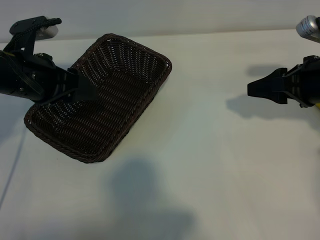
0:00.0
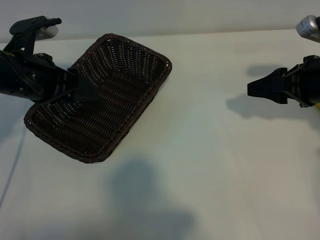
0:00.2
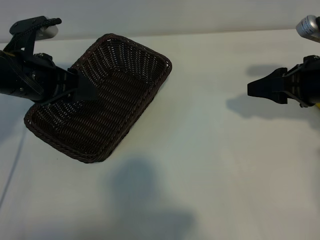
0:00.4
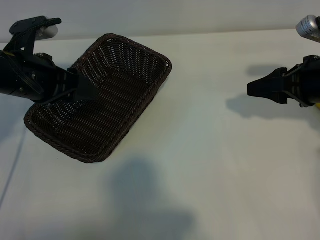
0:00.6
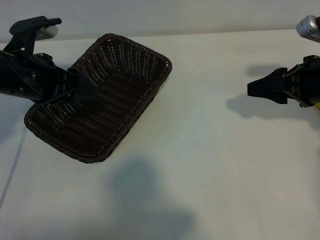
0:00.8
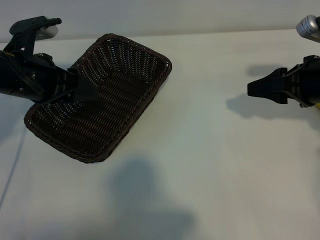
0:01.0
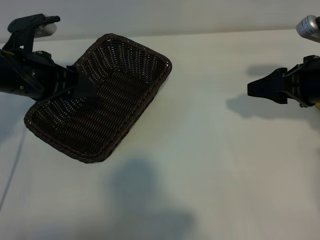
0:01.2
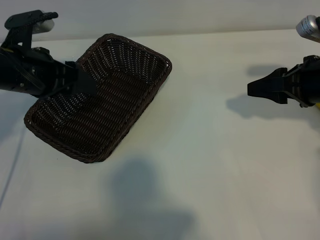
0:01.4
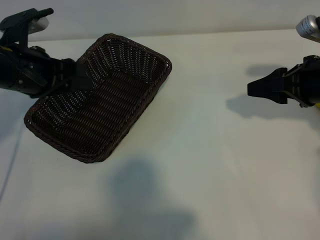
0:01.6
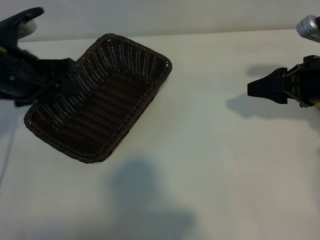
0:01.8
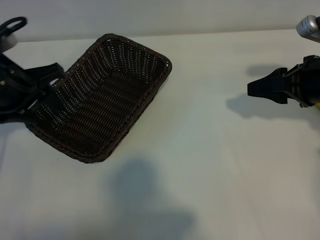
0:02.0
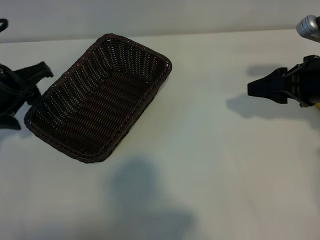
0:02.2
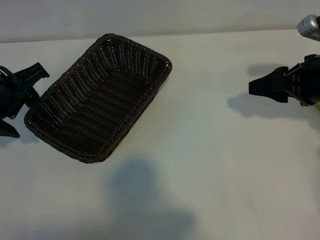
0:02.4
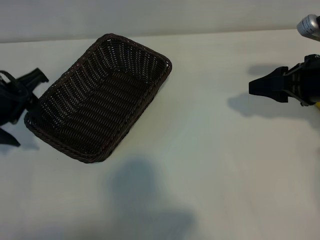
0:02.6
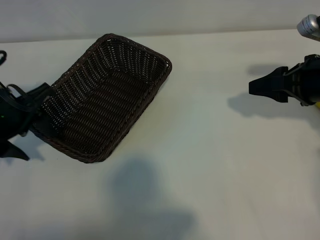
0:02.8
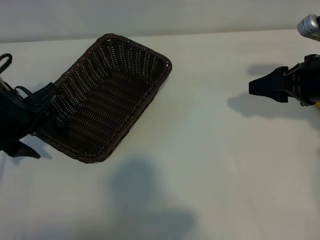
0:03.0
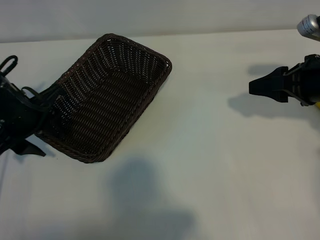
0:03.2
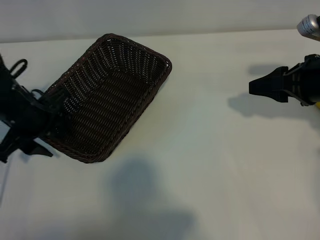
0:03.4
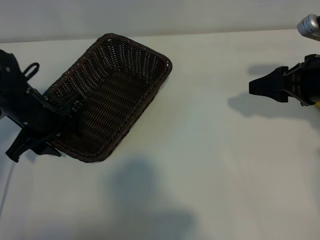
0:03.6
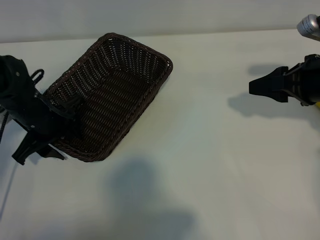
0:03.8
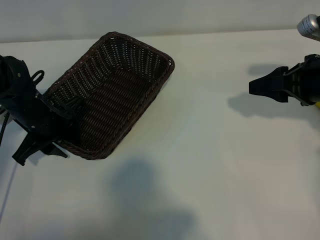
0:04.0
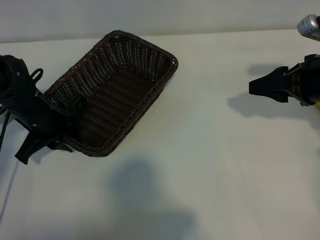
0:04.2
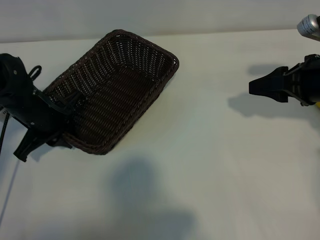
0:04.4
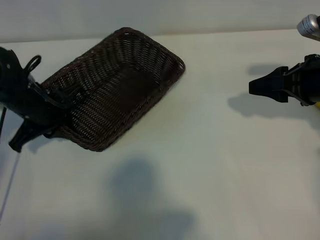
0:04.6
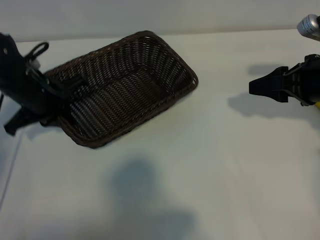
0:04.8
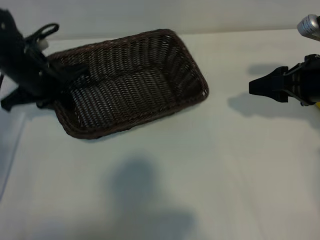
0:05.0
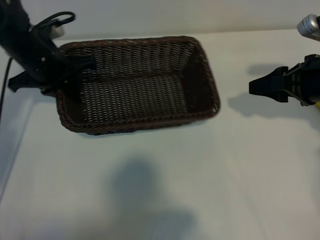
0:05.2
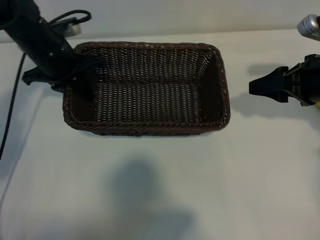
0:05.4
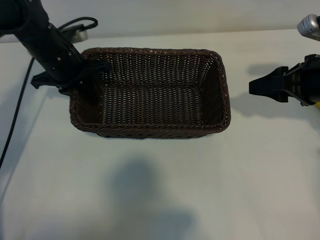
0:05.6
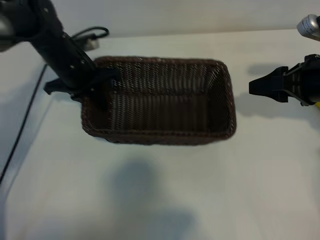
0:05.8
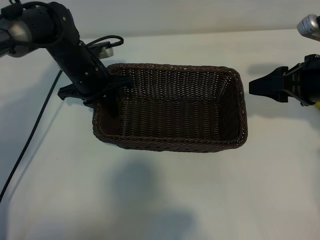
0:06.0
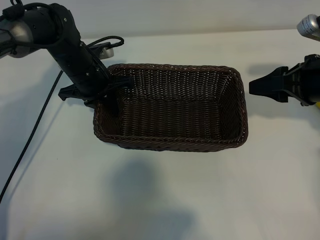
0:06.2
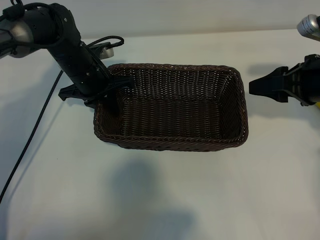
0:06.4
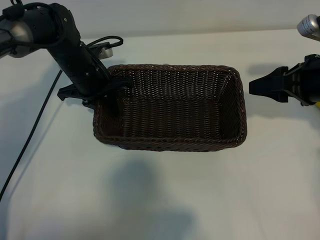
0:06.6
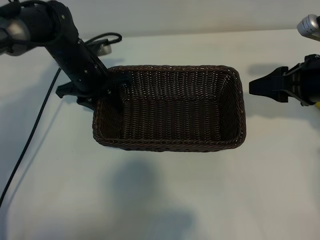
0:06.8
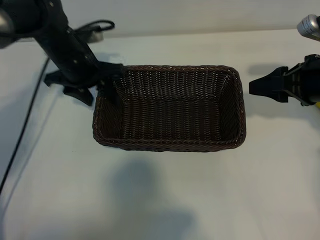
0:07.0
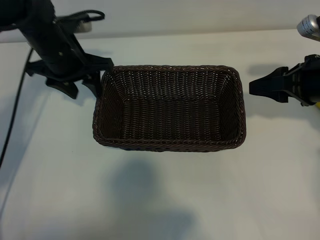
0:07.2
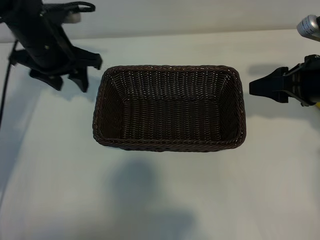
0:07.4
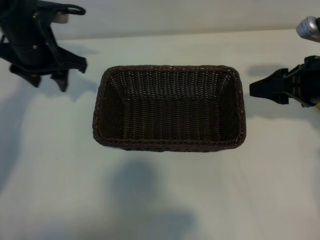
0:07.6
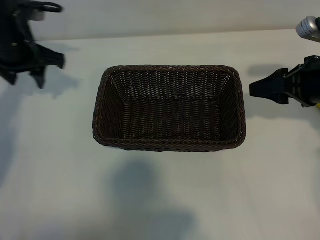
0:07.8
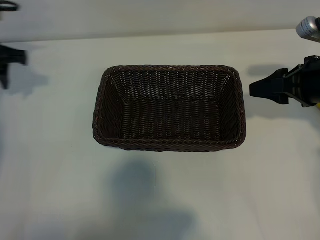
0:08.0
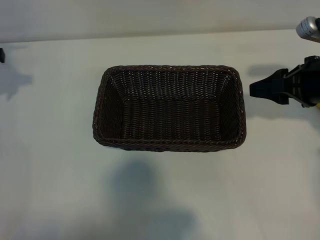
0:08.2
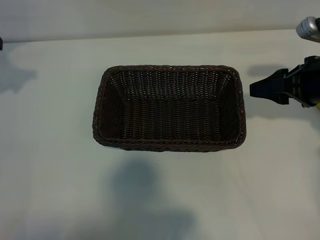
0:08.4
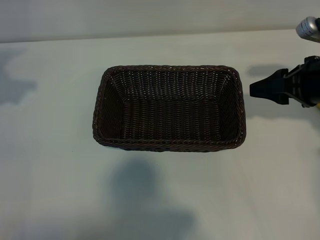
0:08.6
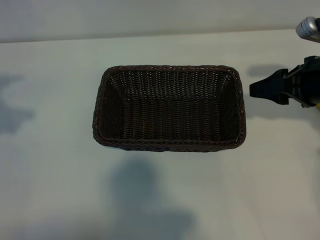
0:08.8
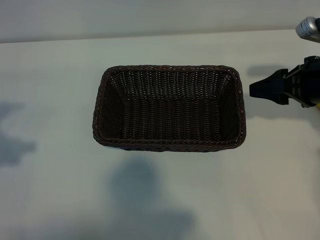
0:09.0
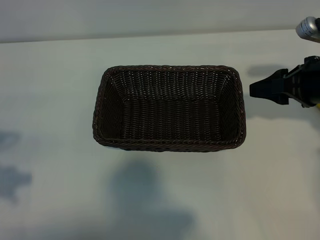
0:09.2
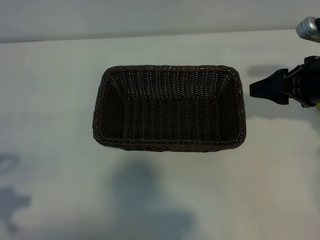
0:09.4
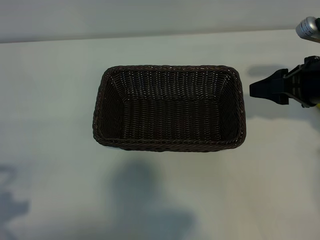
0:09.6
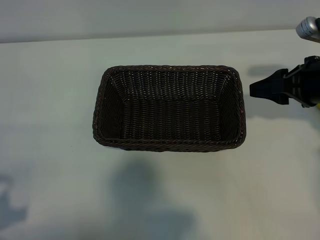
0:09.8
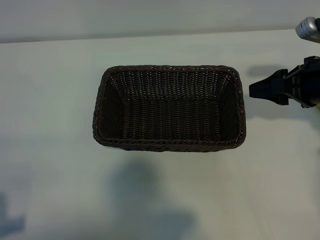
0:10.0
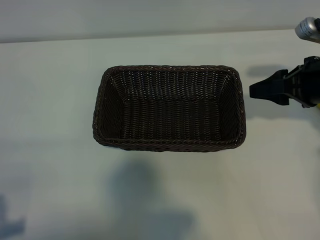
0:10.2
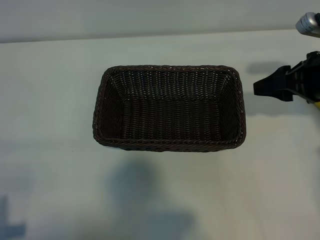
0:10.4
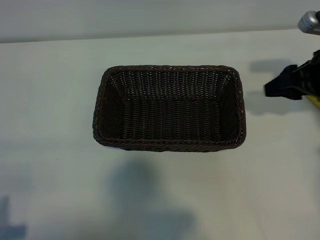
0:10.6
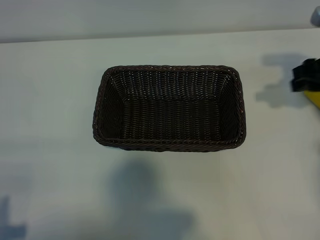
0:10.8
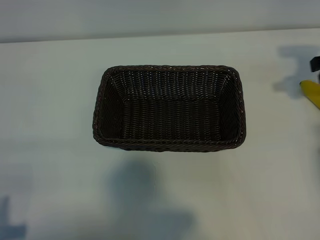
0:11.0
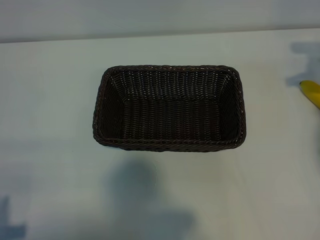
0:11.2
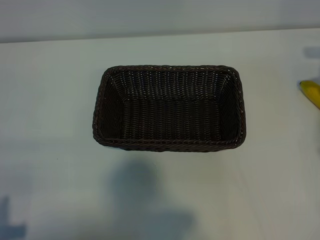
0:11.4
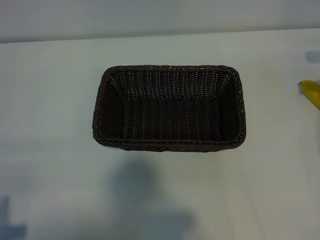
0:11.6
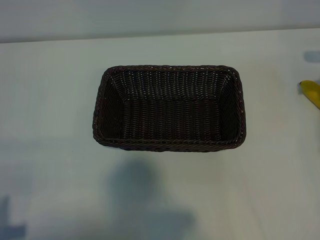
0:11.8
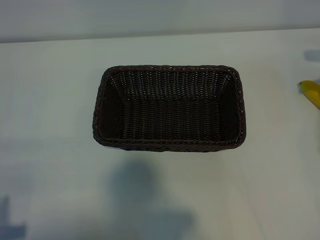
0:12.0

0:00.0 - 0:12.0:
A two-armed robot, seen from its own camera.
Task of the whole recording: pick up the banana and put it into the basket.
Step, 0:01.2 - 0:04.4: Grasp the basket with the left gripper.
Step, 0:04.6 - 0:07.2: Place the basket in the center of the table with the left gripper.

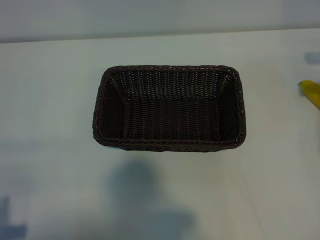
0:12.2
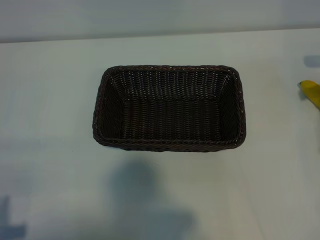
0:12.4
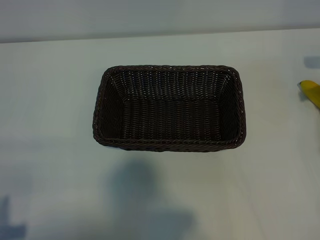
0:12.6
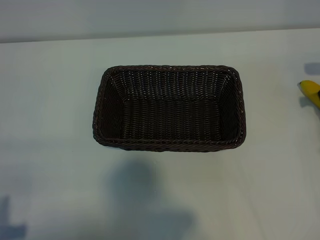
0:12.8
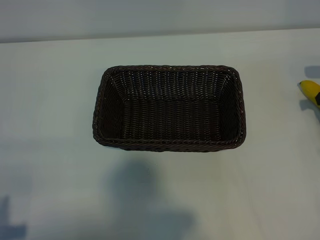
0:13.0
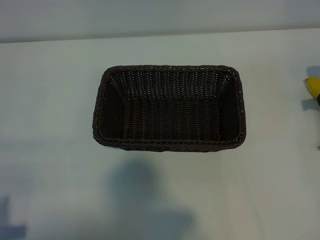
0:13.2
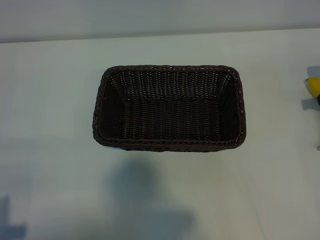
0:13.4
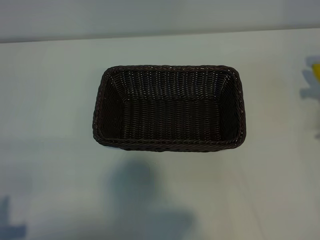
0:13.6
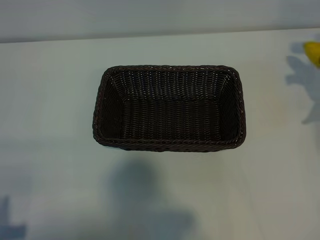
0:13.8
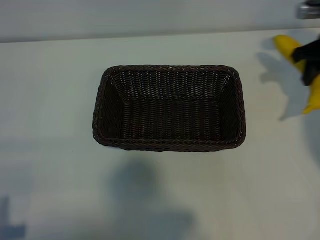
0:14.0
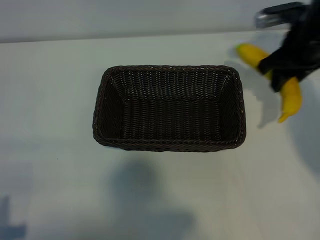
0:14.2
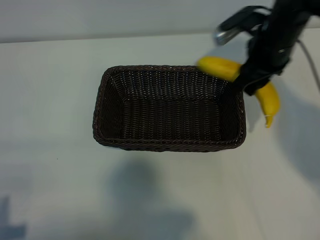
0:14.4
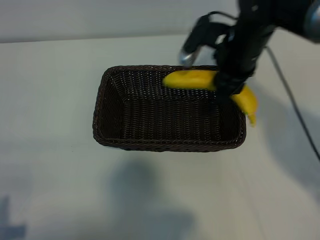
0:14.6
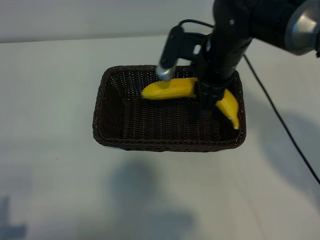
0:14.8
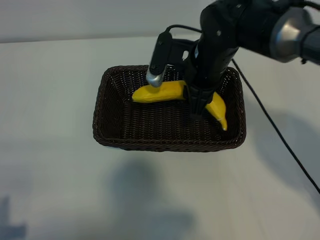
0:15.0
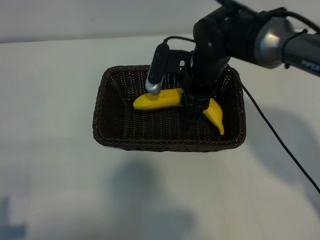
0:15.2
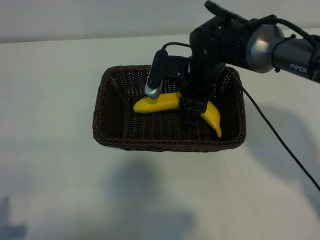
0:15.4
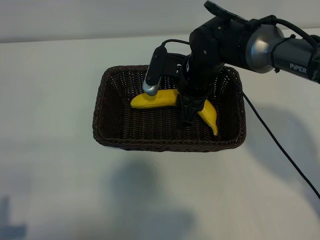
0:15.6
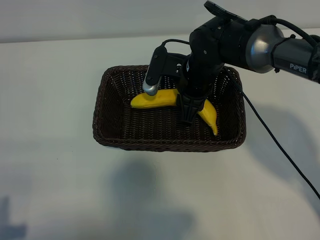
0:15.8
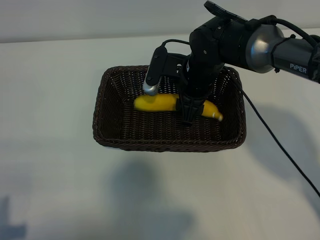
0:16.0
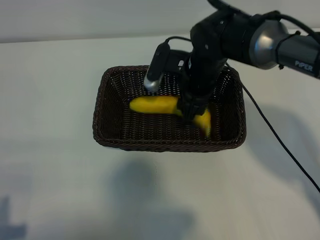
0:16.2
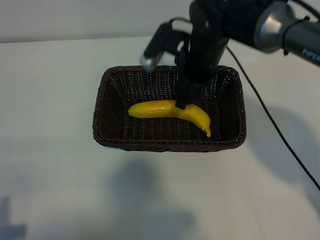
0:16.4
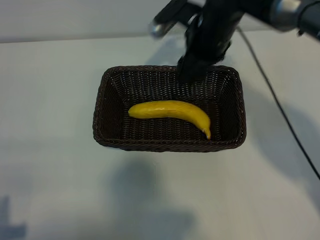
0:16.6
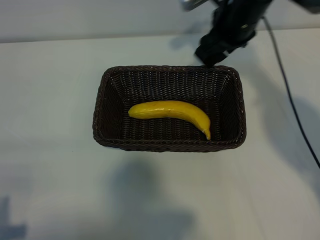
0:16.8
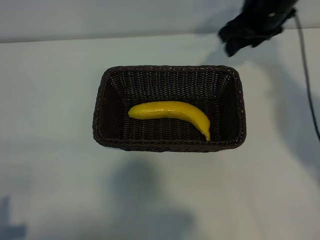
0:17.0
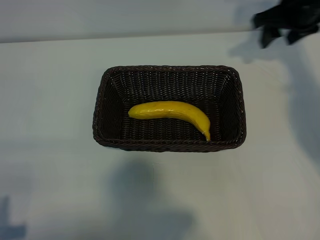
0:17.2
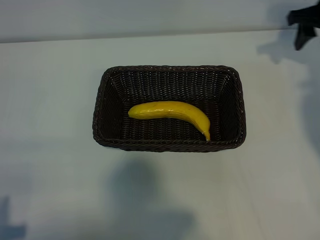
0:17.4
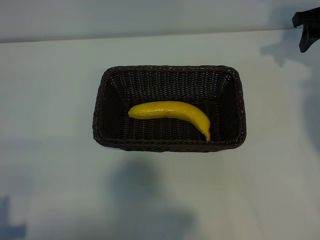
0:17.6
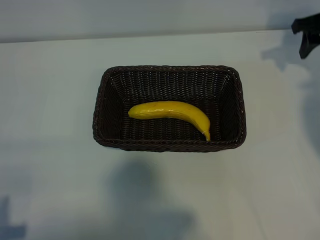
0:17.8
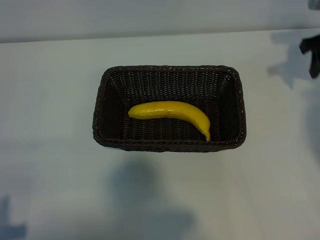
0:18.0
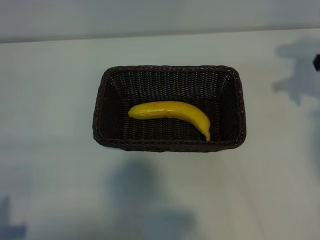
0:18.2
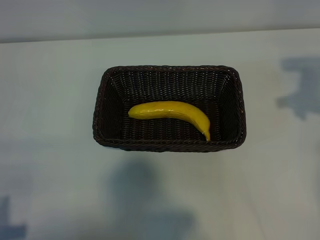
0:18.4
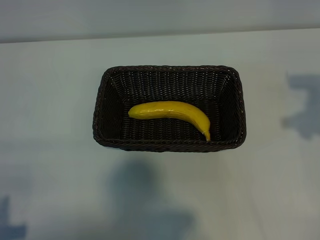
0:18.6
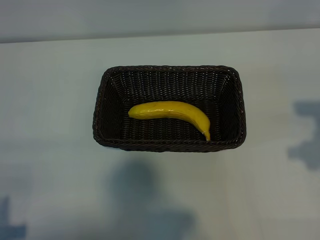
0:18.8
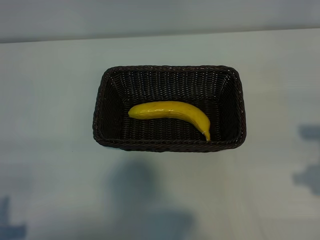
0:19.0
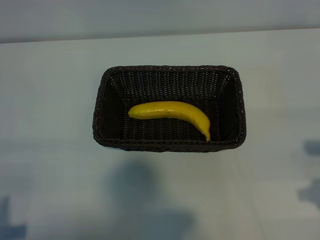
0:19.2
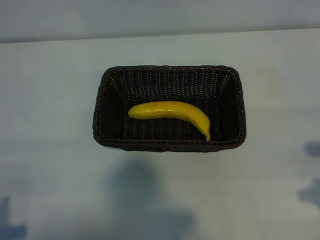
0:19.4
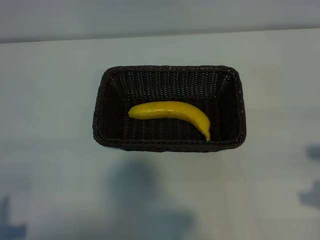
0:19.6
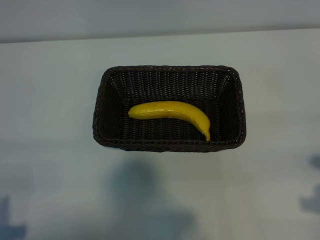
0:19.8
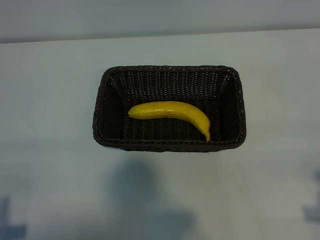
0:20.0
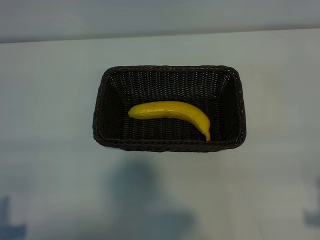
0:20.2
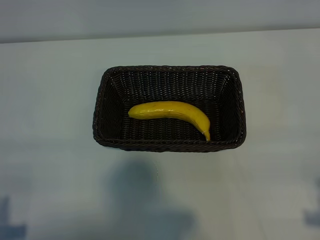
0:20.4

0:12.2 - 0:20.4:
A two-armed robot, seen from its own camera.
Task of the whole recording: pick up the banana and put it into the basket.
Step, 0:13.4 - 0:16.4: Place the banana in the basket with right gripper.

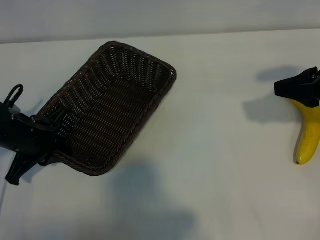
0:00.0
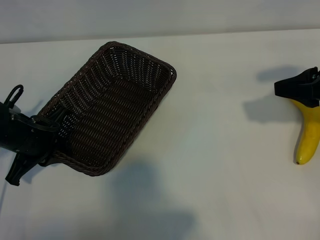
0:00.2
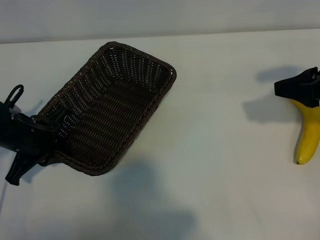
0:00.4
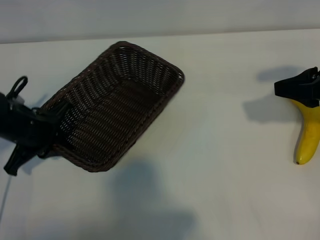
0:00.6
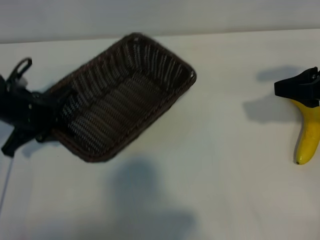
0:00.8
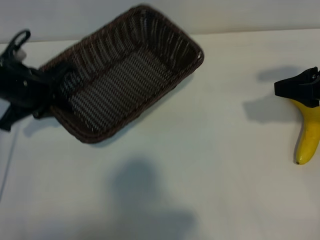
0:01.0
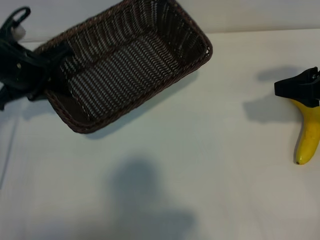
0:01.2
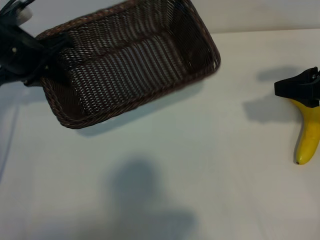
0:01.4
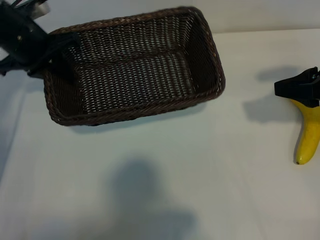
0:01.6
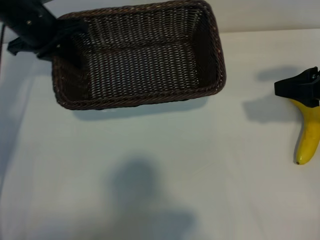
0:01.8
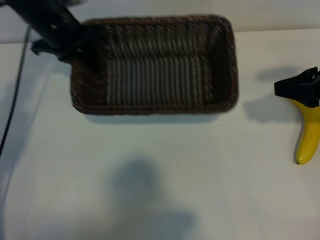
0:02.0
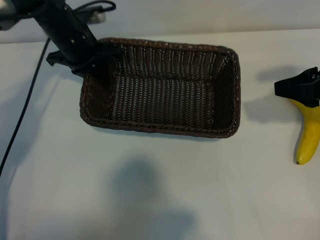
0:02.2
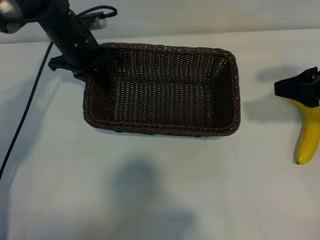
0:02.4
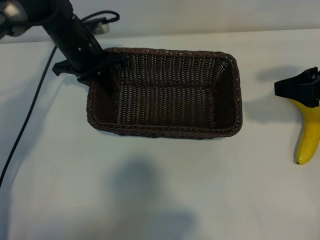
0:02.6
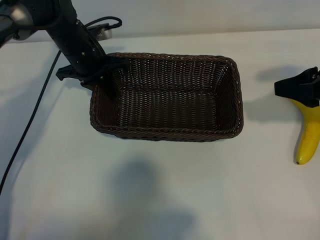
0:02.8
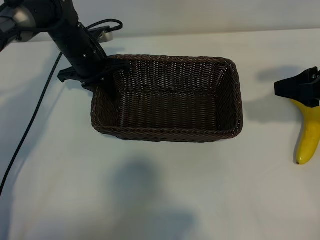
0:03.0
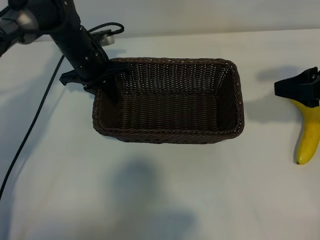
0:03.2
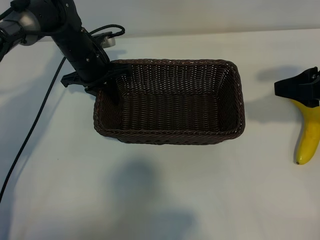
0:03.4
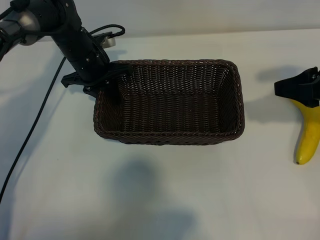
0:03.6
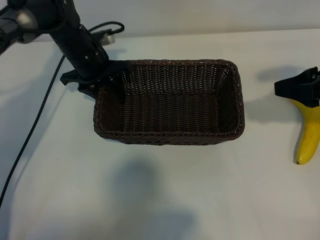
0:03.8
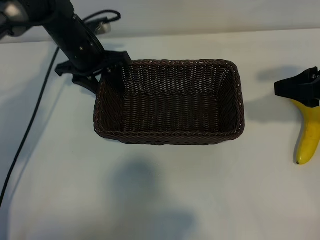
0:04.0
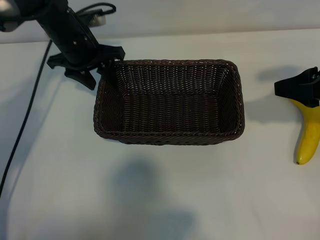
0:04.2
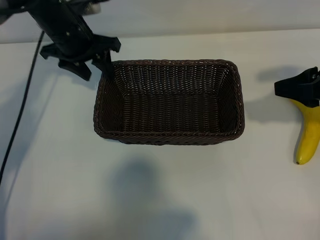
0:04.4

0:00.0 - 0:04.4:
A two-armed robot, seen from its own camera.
Task of the whole recording: pick up the banana and put it into the basket.
Step, 0:00.0 - 0:04.2: Place the basket in the center of the table with the left gripper.
